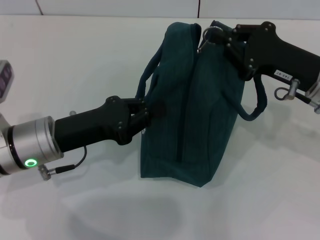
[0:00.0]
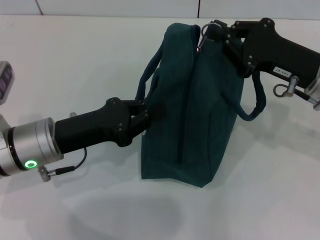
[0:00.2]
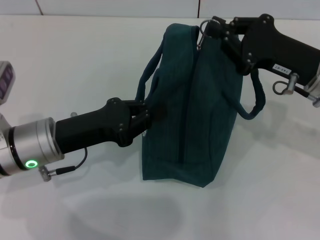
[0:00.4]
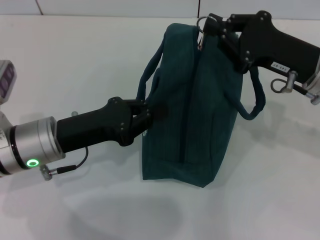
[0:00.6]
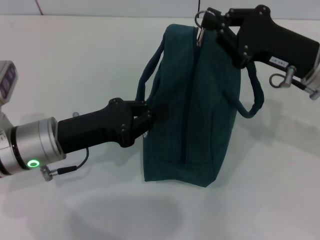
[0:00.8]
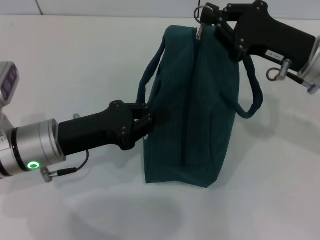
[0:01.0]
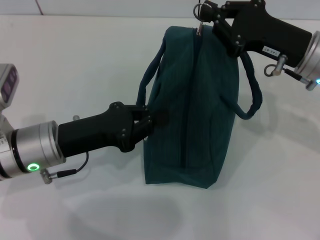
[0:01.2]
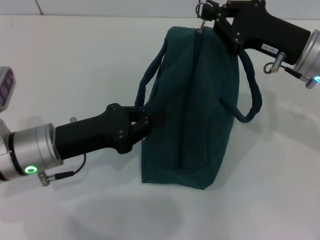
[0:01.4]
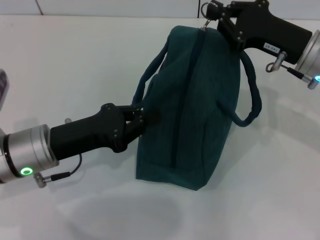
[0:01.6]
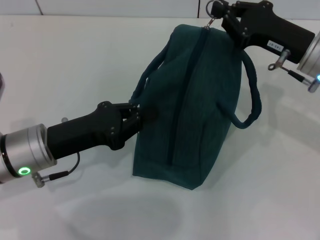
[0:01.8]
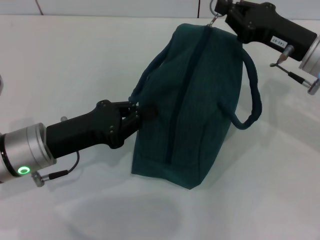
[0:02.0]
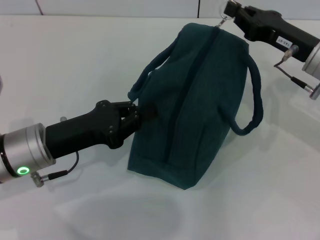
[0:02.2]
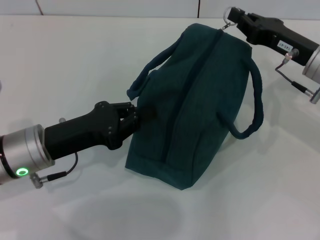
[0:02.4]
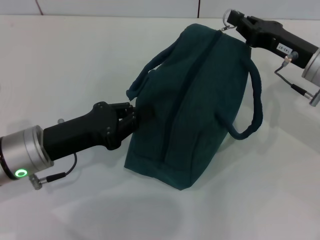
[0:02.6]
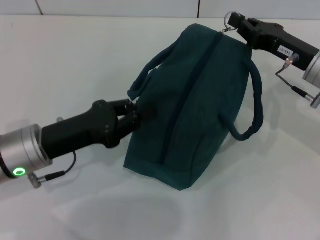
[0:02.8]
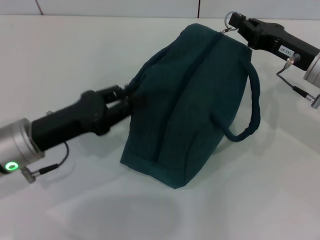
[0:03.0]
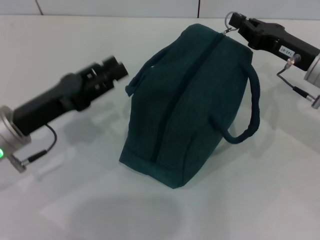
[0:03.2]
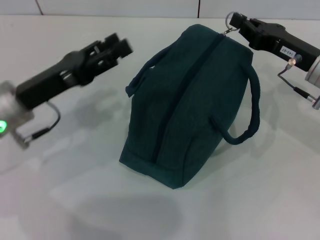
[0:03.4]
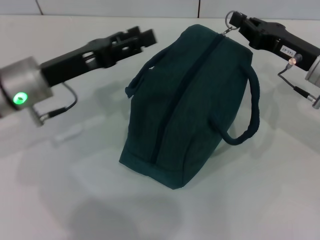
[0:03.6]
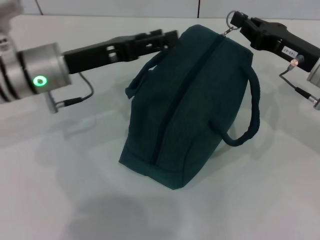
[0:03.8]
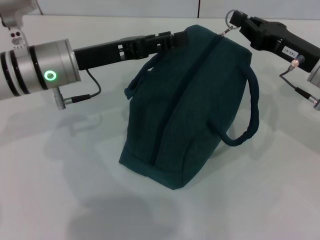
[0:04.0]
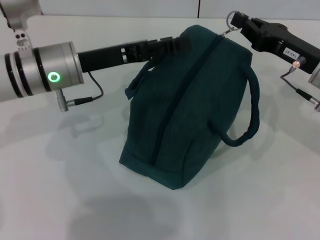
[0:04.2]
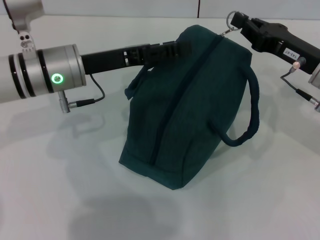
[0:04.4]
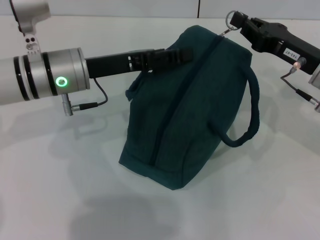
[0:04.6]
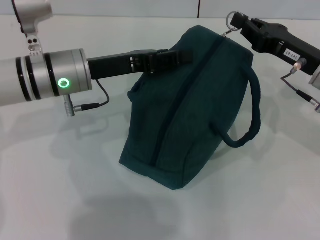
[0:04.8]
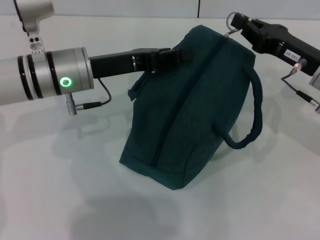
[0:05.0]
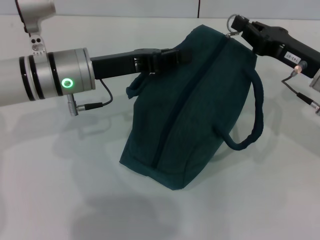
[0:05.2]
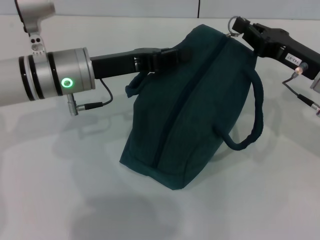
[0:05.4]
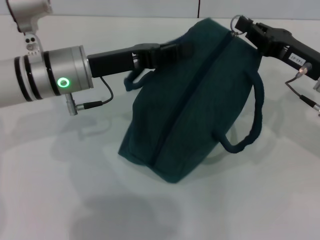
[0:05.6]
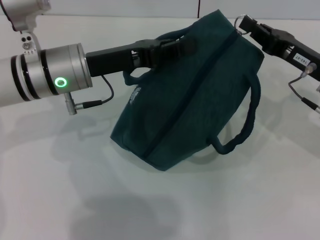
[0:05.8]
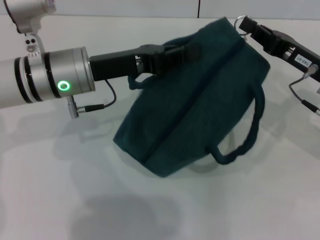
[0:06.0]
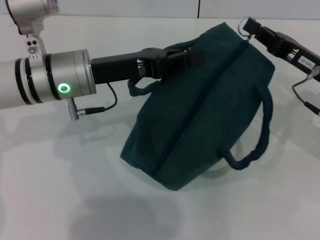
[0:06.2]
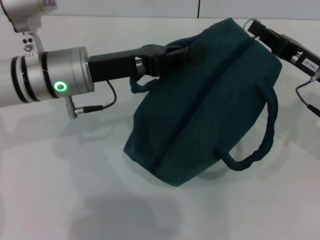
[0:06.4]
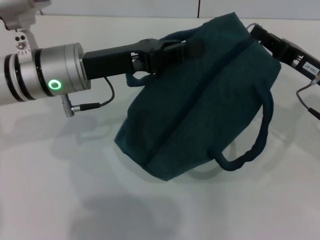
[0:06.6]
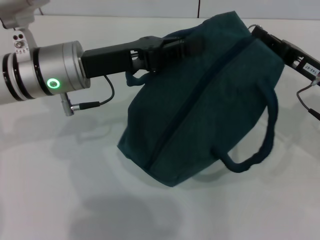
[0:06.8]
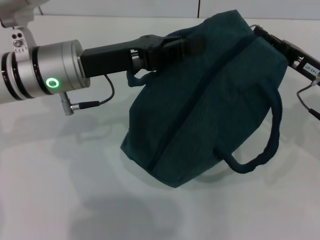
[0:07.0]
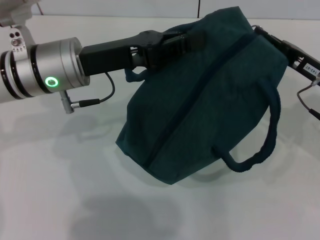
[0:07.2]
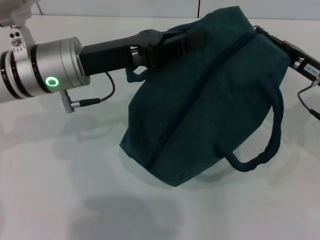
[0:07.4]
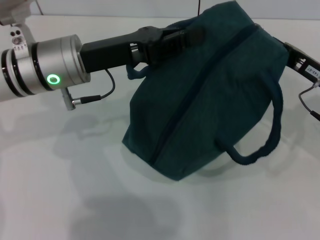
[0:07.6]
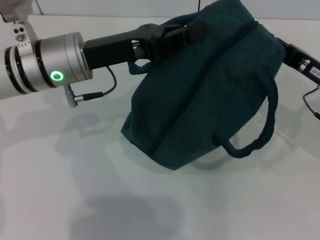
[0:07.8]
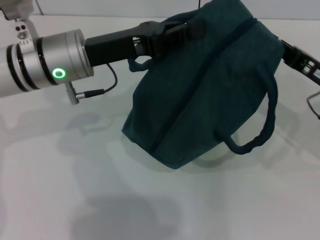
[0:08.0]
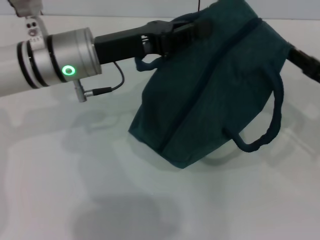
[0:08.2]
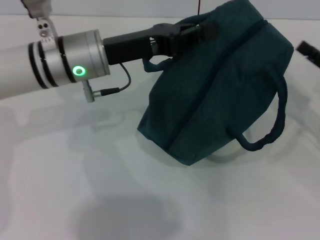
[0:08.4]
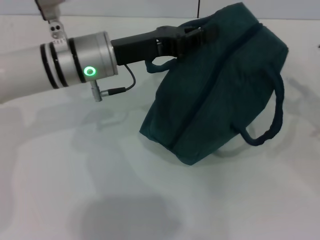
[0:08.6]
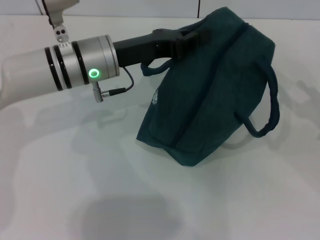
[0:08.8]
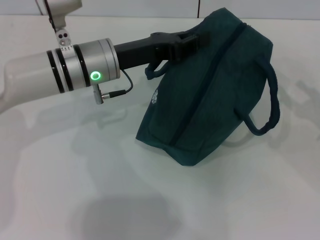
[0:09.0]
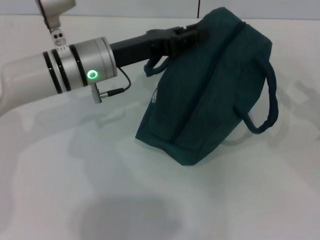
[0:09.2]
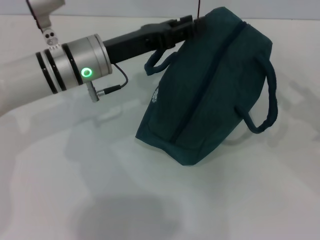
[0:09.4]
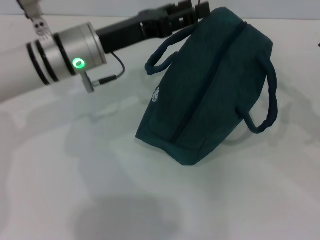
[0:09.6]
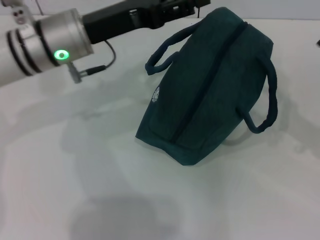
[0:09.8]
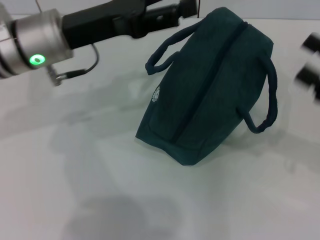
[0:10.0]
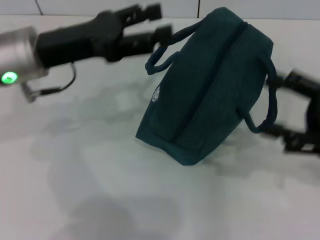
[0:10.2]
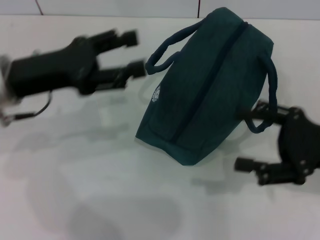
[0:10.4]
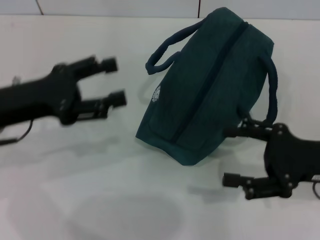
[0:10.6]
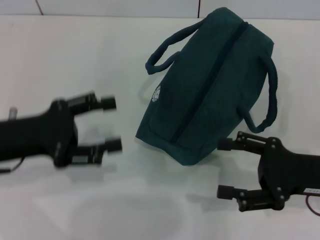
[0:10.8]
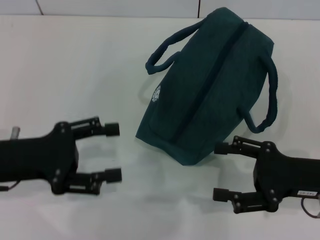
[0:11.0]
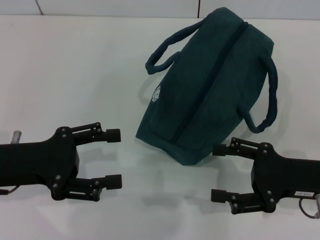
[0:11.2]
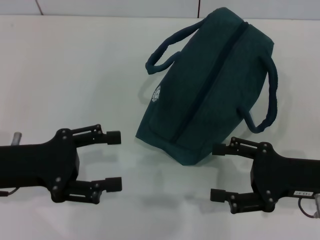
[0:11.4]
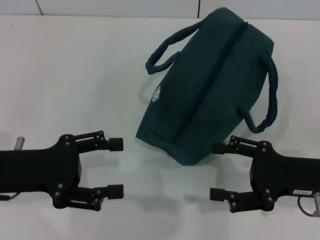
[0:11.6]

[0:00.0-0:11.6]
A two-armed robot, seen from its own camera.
Step, 0:00.0 to 0:08.2: Zip up the lunch bag with your right hand.
Step, 0:08.4 to 0:09.4: Hold the lunch bag with your left hand.
0:00.0 to 0:01.4: The grippers make only small movements.
0:02.8 to 0:04.4: The left gripper heads forward, covering roughly 10 cm, and opens.
0:04.4 to 0:05.8: The left gripper closes its fingers.
0:05.8 to 0:07.2: The grippers move only a little.
0:07.2 to 0:08.8: The left gripper changes place by roughly 5 cm, while the right gripper moves to the right, some 10 cm, and opens up.
0:08.8 to 0:10.2: The left gripper goes approximately 5 cm to the left, and opens. The right gripper heads to the left and upward, covering roughly 10 cm.
0:10.2 to 0:11.6: The right gripper travels downward by approximately 5 cm; the left gripper travels backward, downward and to the left by about 15 cm.
